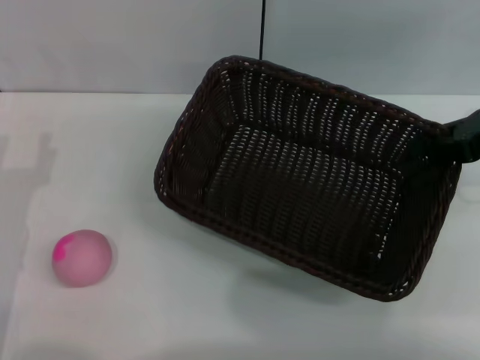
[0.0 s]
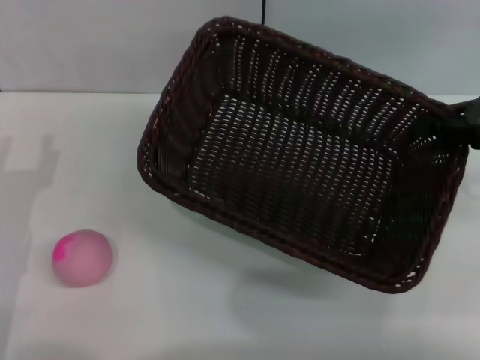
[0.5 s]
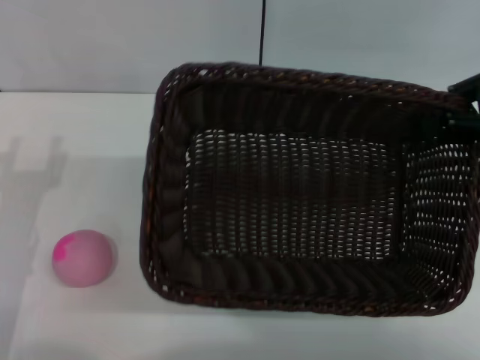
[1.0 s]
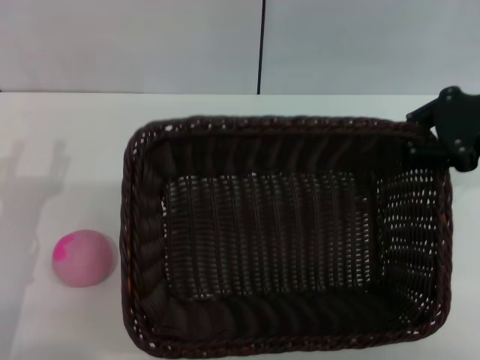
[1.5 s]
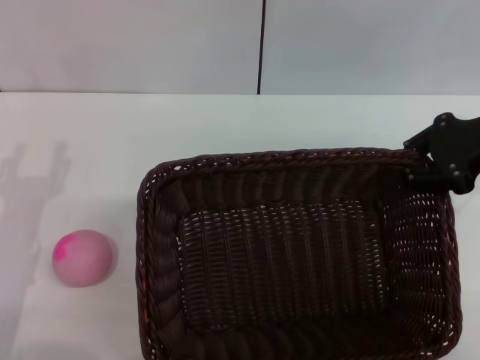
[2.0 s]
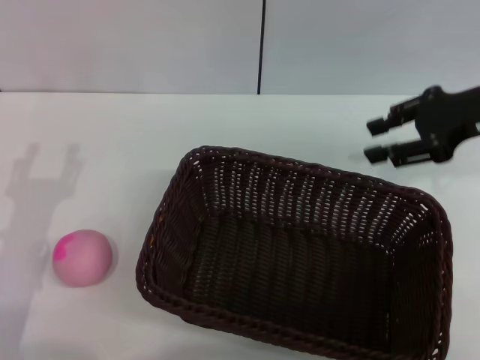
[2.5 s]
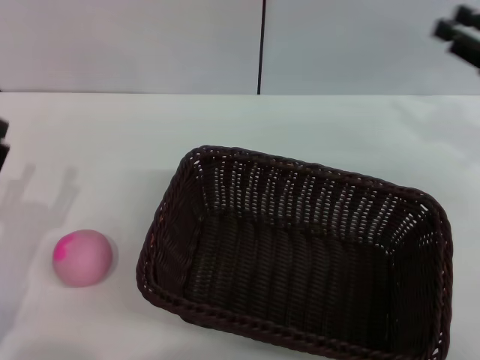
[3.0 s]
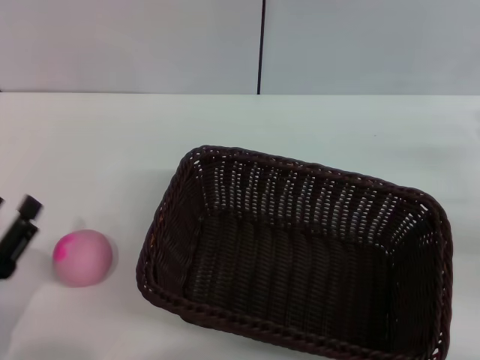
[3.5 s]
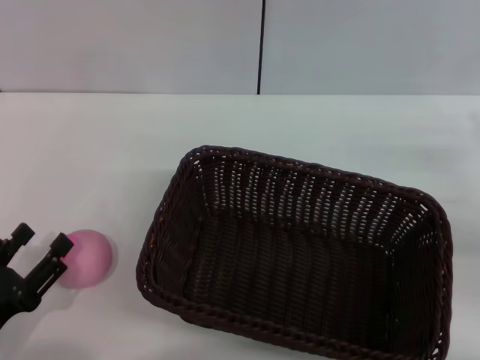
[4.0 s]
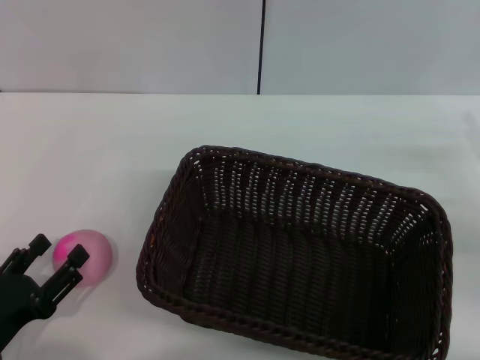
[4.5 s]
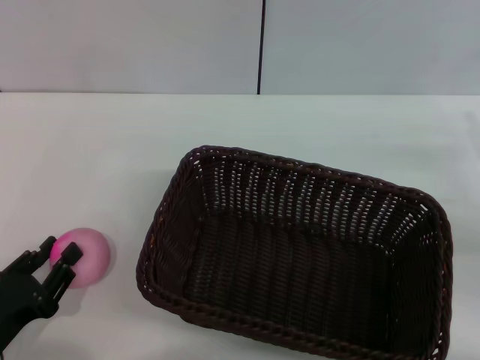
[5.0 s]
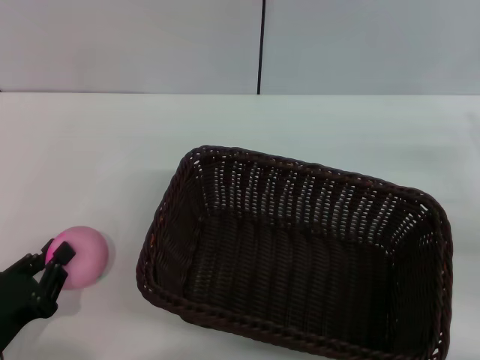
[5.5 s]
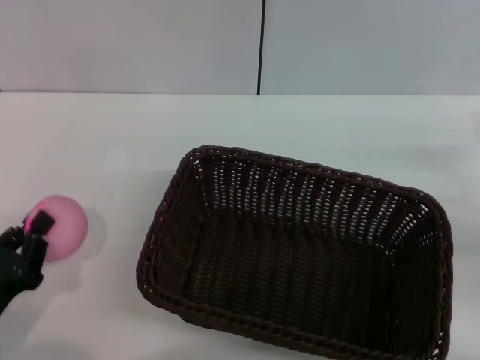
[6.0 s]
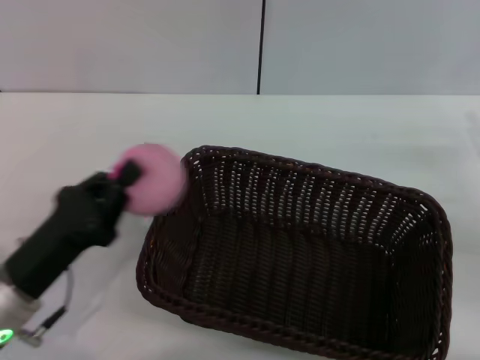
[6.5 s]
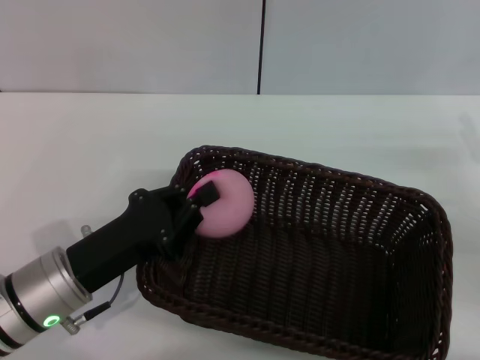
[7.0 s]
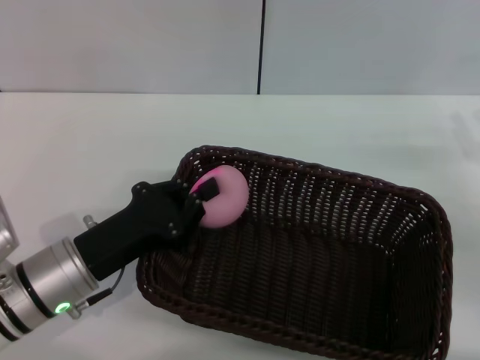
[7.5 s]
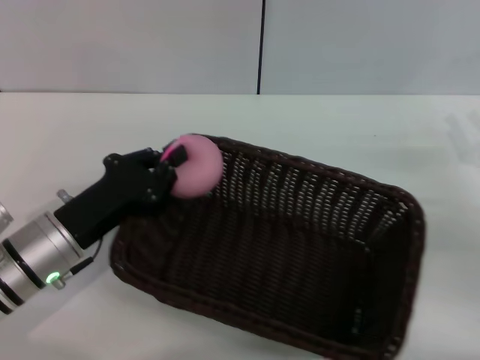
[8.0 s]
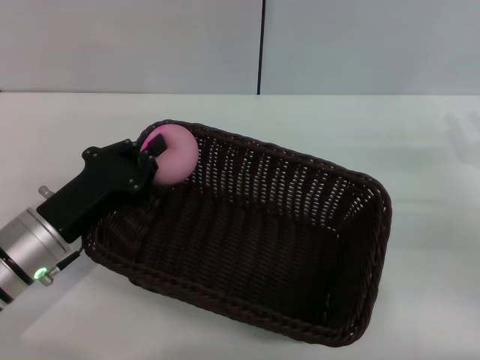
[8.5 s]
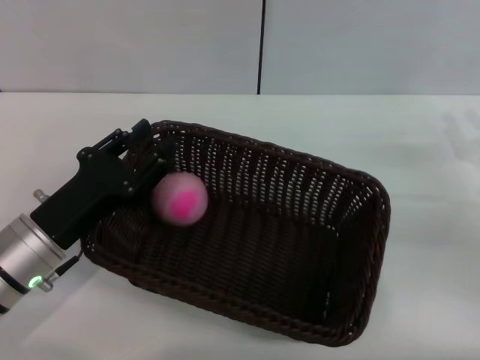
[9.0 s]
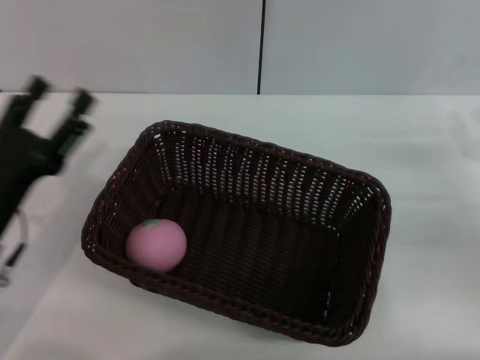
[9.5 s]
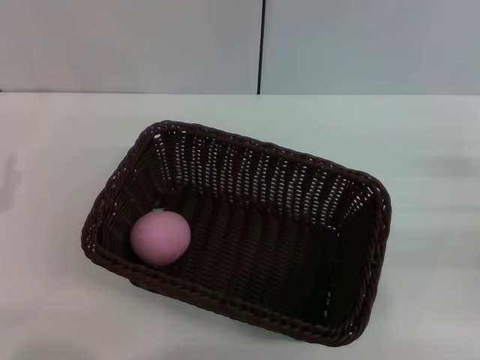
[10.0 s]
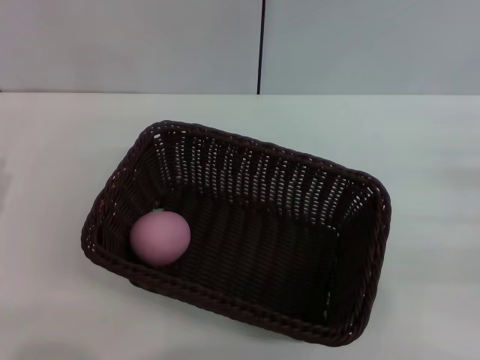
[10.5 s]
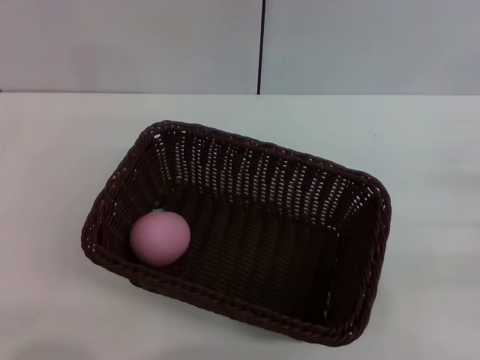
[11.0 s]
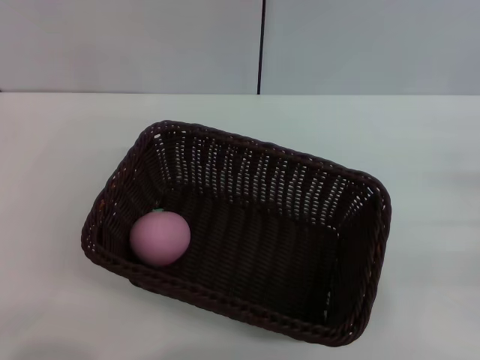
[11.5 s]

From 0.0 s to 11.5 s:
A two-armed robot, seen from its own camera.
Step, from 1.0 s to 2.5 s: Place the dark basket in the center of view with the right gripper.
Step, from 3.0 s to 6.0 s: Pick up the peach with the left gripper.
Step, from 6.5 s to 9.0 s: Place the peach into the basket with the left gripper.
From 2.0 s to 4.0 s: The left gripper travels backward by some 10 cm. The right gripper shifts roughly 15 cm downward, backward and to the right, and opens up.
From 4.0 s to 6.0 s: The left gripper closes.
From 6.0 s to 7.5 s: The left gripper shifts approximately 15 cm forward and to the right.
From 7.5 s to 9.5 s: The left gripper goes roughly 5 cm to the left, and opens up.
From 9.5 s to 11.5 s: The left gripper moves to the left and backward, approximately 10 cm, and closes its fingers; the right gripper is displaced to the right by roughly 5 cm.

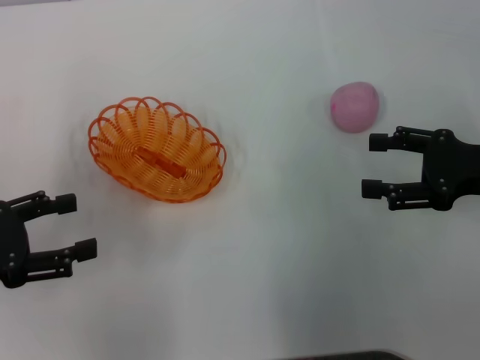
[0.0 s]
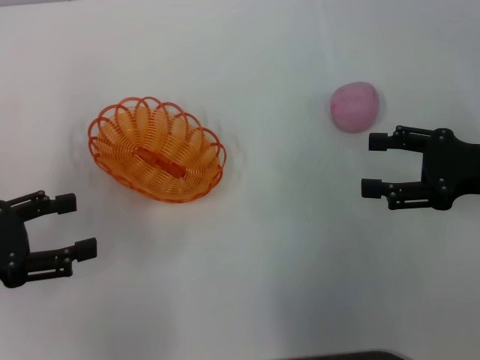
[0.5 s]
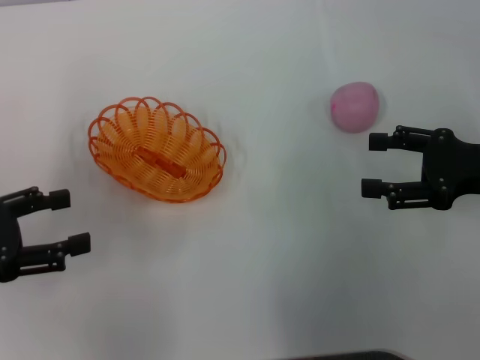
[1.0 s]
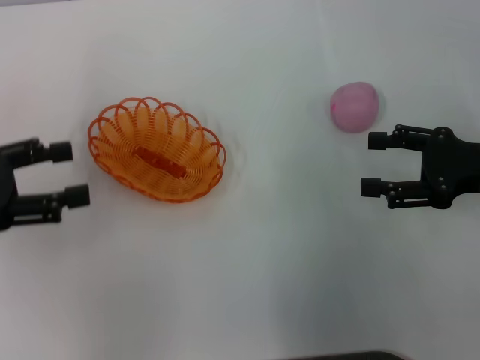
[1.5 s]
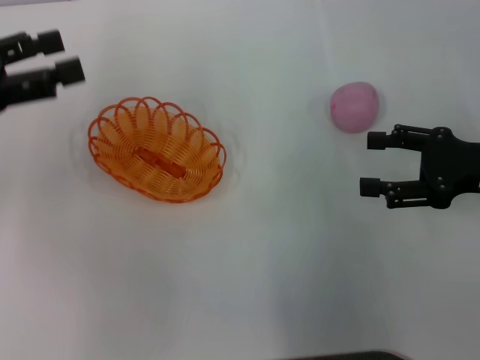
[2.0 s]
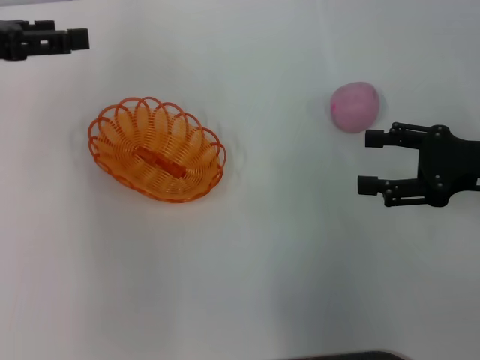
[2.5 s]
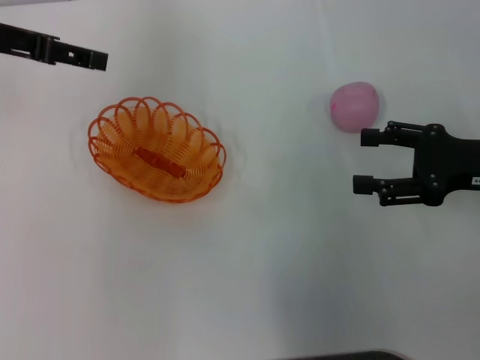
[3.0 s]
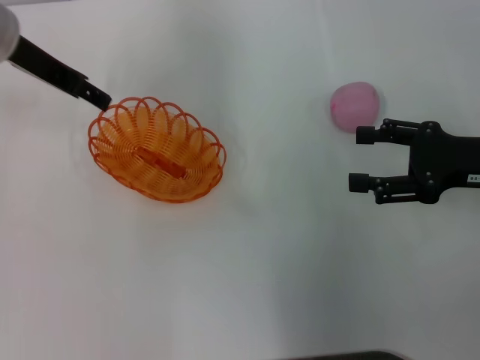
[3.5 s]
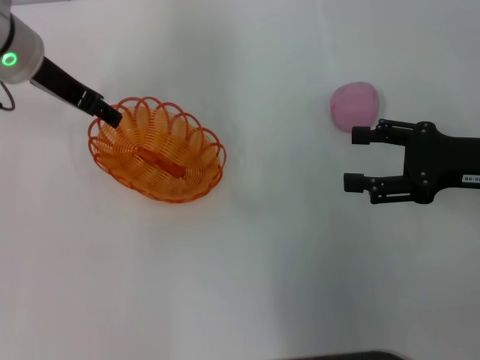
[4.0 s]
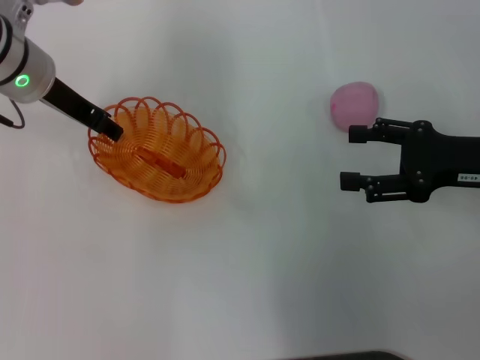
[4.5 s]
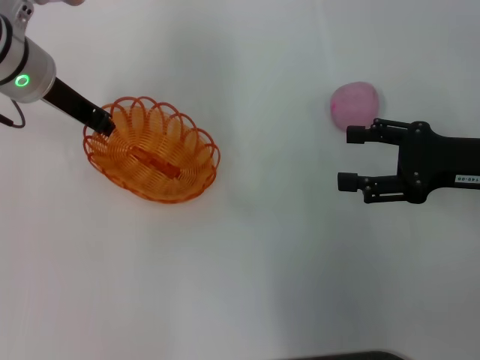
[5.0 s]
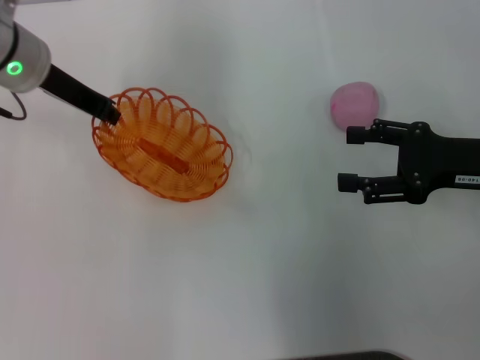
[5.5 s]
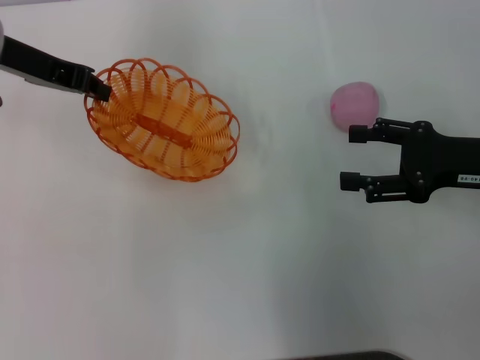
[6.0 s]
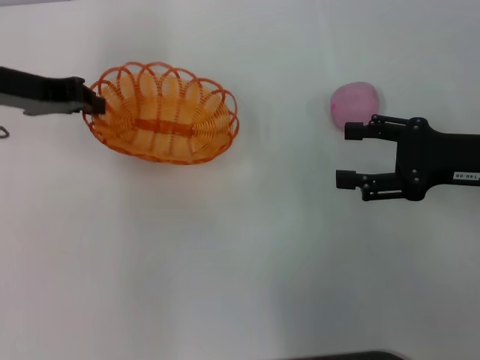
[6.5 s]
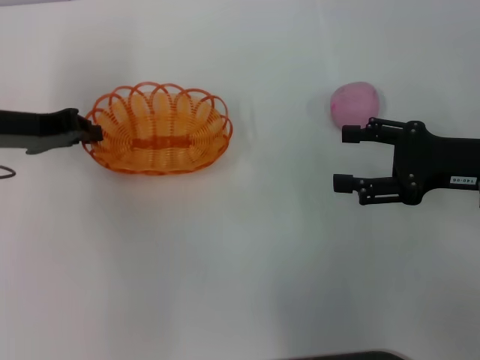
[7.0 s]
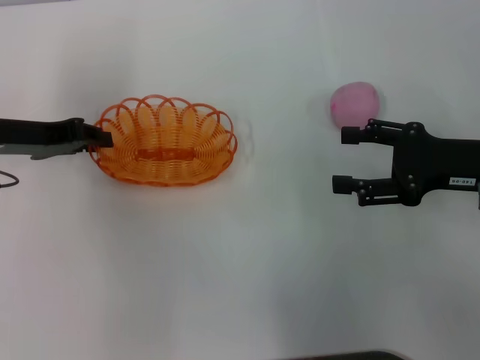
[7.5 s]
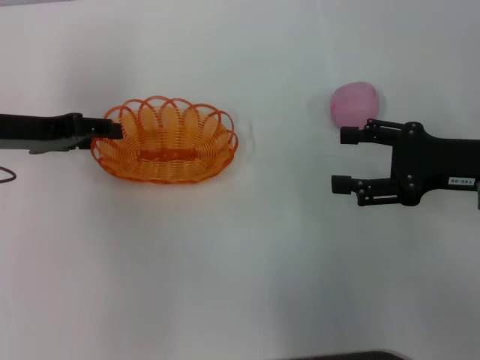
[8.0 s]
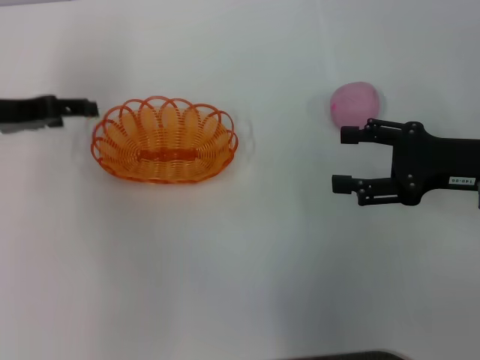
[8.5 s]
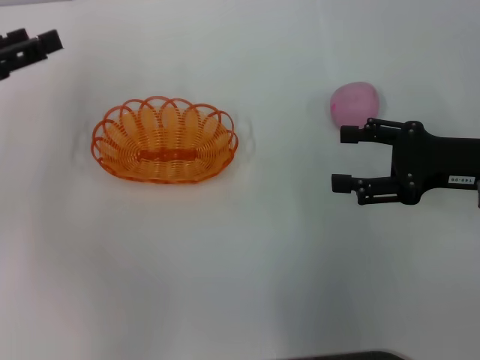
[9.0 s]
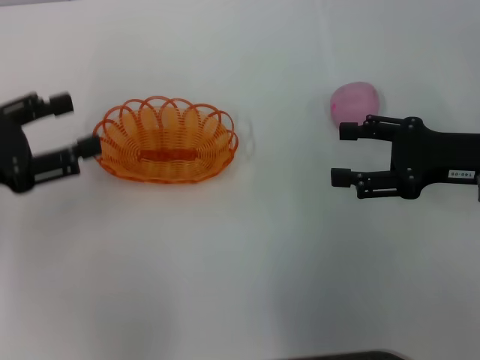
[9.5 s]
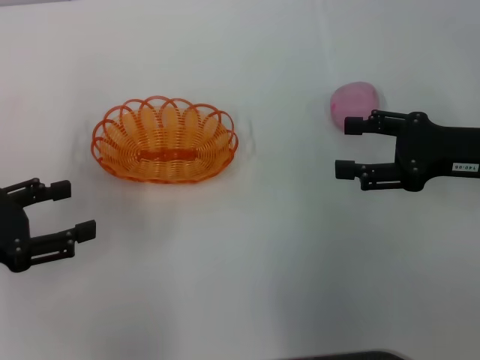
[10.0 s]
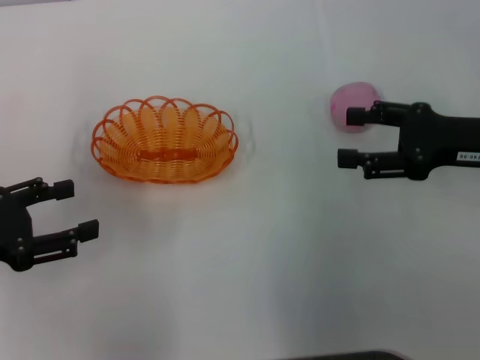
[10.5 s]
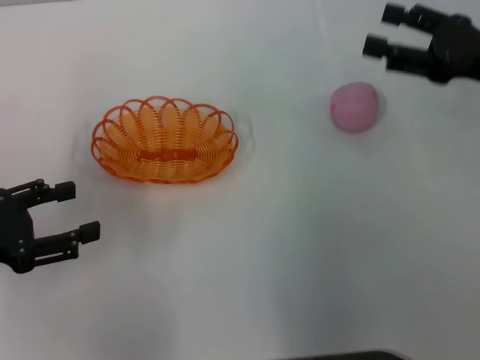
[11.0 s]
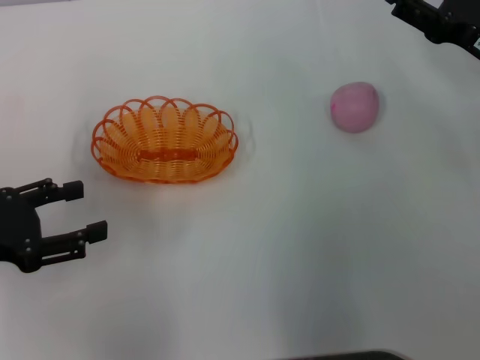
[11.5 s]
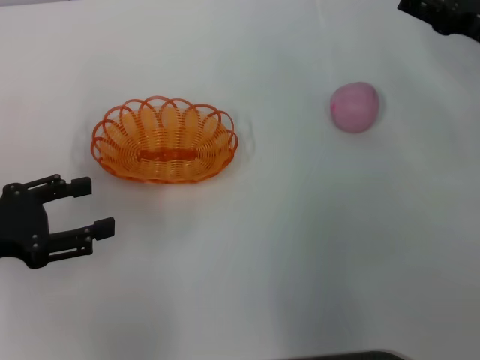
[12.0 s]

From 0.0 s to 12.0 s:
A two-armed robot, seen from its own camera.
Step, from 0.0 s to 5.5 s: Pick up the basket with the left gripper.
Step, from 6.0 s to 8.5 s: Place the basket in the center of view with the left gripper.
From 0.0 s to 2.0 s: The left gripper moves forward and upward, some 10 cm.
From 2.0 s to 4.0 s: The left gripper moves to the right and forward, approximately 15 cm.
From 4.0 s to 6.0 s: The left gripper closes up.
From 6.0 s to 8.0 s: The left gripper heads downward and backward, covering roughly 10 cm, and opens.
From 8.0 s to 10.0 s: The left gripper is displaced backward and to the left by approximately 15 cm, and opens up.
From 10.0 s to 12.0 s: The right gripper changes place by some 5 cm.

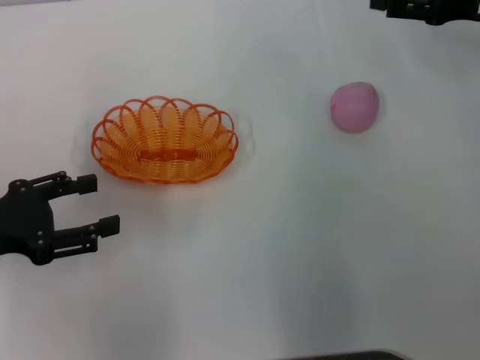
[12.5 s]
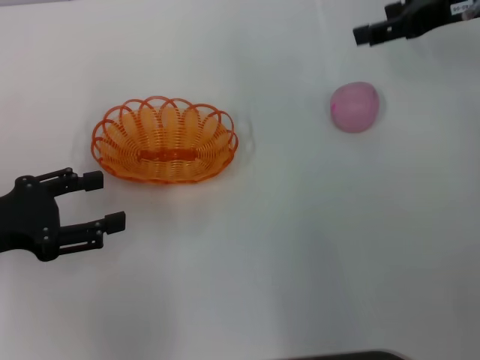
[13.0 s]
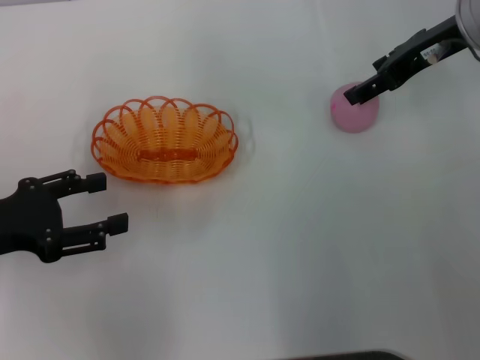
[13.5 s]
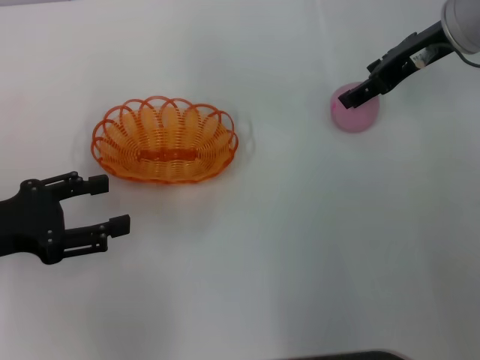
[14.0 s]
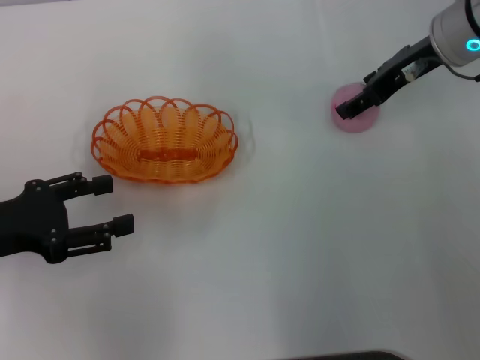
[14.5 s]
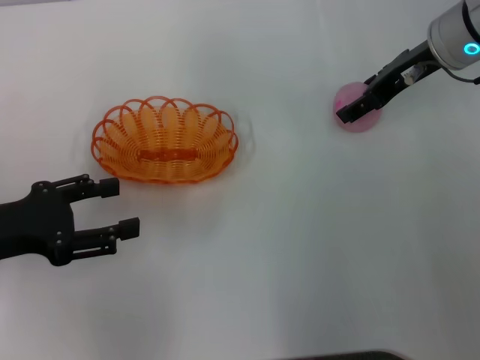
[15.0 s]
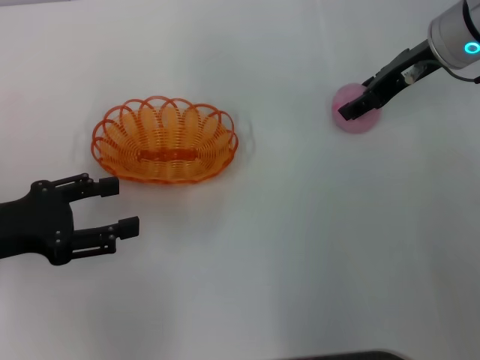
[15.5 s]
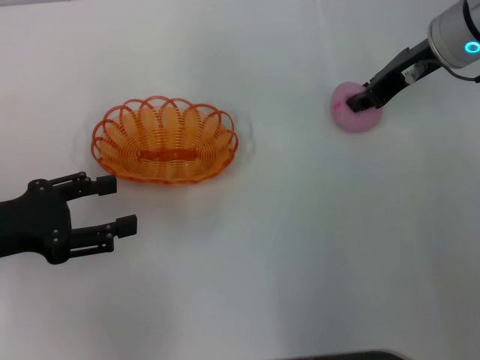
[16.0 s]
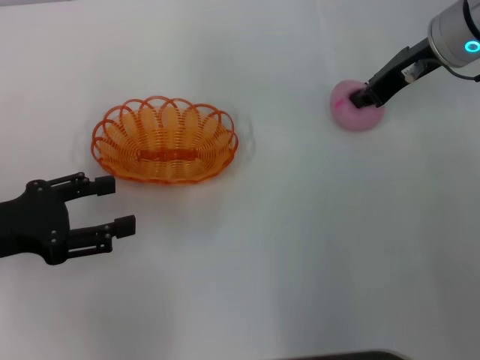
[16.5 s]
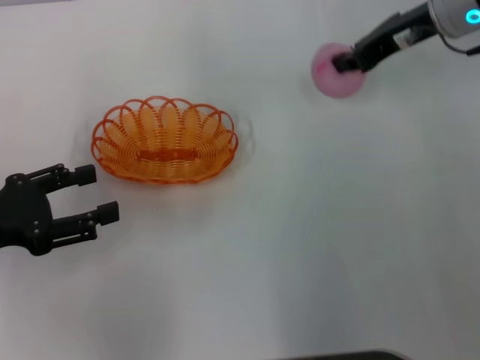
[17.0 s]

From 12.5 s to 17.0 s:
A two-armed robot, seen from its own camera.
From 12.5 s to 14.5 s: The right gripper is displaced to the left by approximately 10 cm.
From 14.5 s to 17.0 s: The right gripper closes its fingers.
